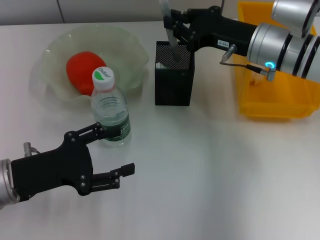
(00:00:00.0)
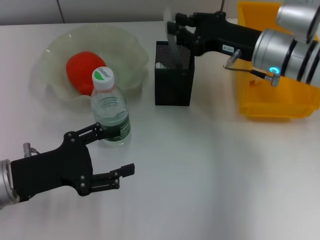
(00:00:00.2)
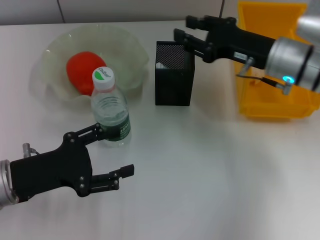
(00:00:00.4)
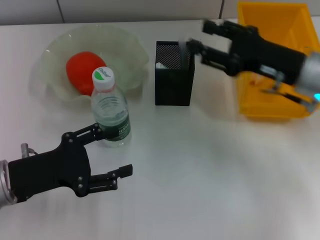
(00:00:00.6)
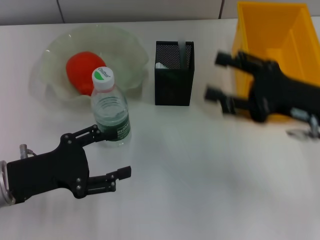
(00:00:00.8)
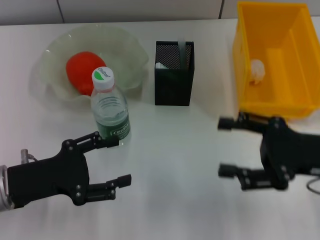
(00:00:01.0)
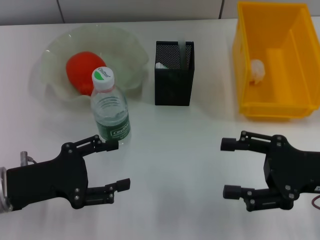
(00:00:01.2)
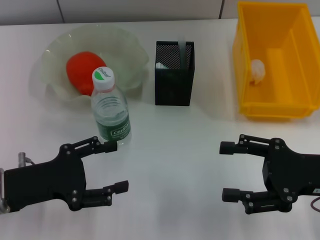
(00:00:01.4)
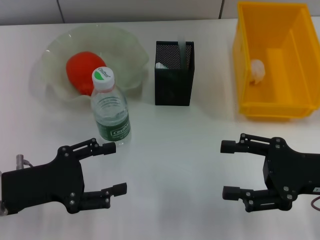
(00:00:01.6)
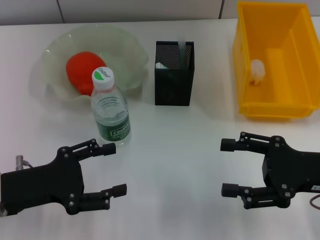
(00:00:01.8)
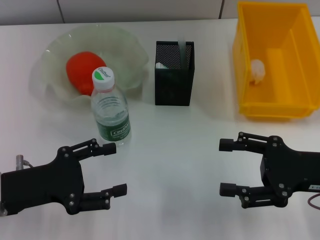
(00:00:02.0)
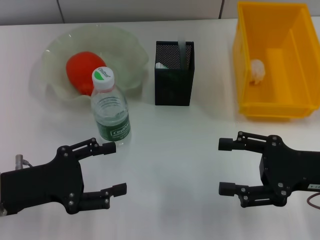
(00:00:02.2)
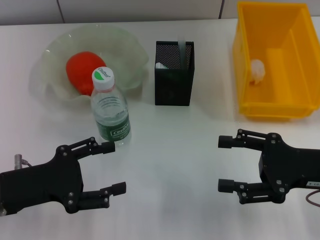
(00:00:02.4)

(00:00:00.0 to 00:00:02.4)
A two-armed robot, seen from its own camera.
00:00:00.0 - 00:00:01.2: The right gripper goes roughly 20 cm backward and to the right, and opens.
00:00:01.2 - 00:00:02.4: The two grippers keep their place.
